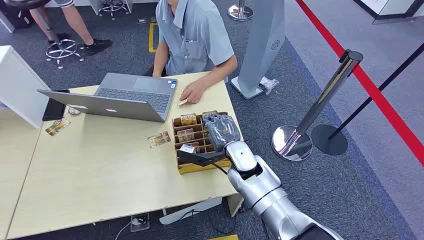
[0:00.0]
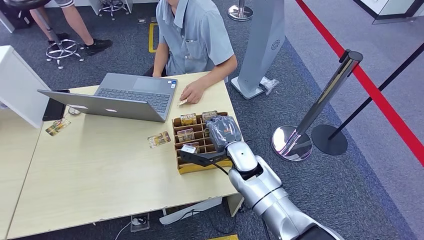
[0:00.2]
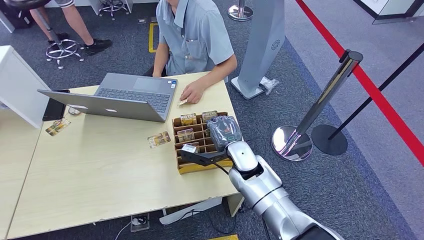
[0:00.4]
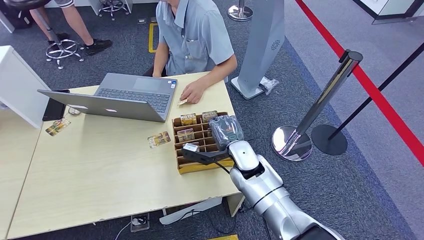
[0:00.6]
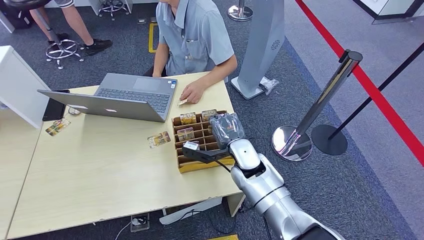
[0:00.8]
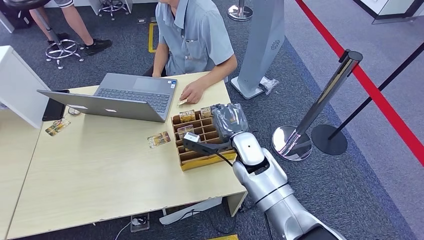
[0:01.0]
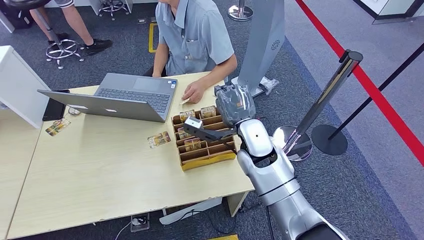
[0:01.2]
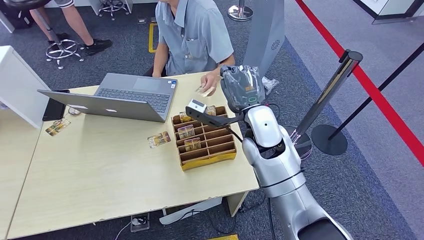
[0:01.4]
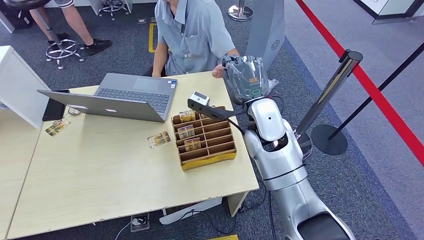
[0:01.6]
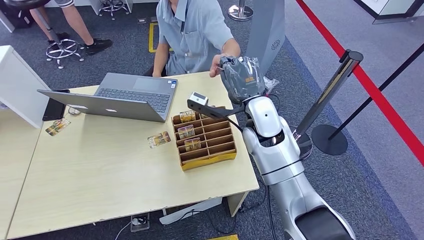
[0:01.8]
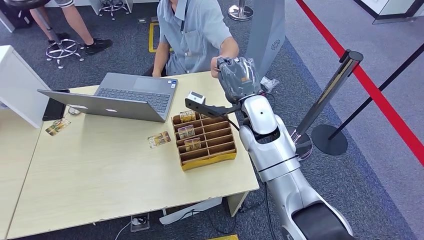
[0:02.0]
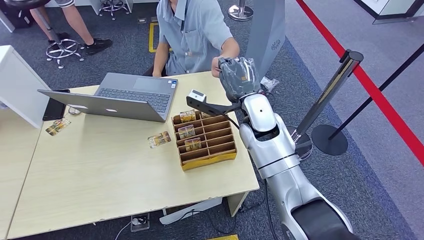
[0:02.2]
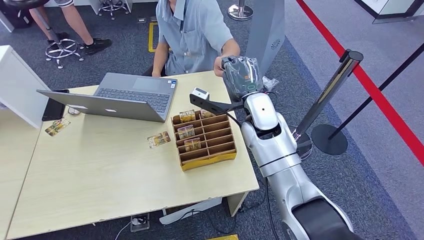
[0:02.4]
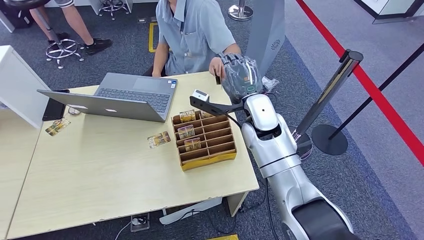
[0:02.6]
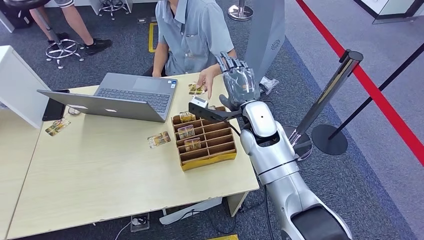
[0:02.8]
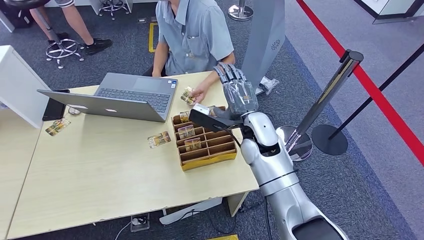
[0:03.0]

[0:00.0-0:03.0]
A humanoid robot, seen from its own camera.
Task of the whole recording: Pick up the card and hand it over to the target person.
Step, 0:00.0 to 0:01.2: Pick up the key card from the card box.
Step, 0:02.0 to 0:03.0: Hand the key card to the target.
0:01.6 to 0:03.0: The right hand heads backward, covering approximately 10 cm.
